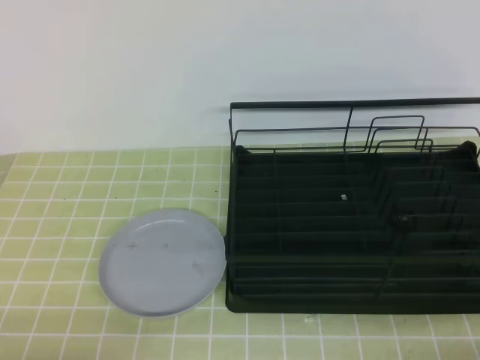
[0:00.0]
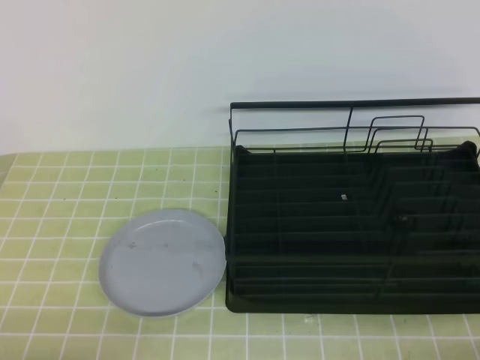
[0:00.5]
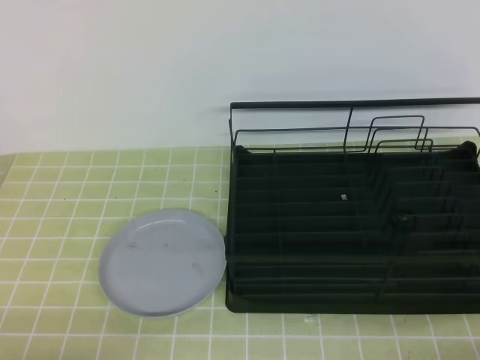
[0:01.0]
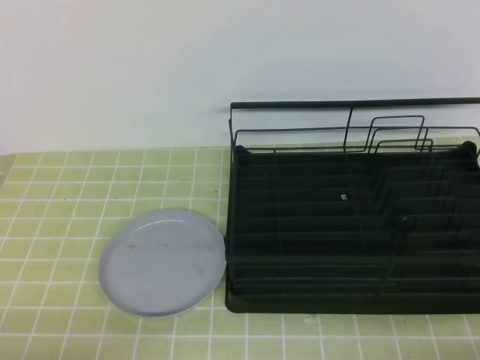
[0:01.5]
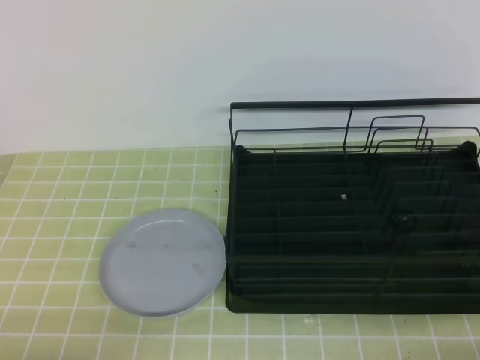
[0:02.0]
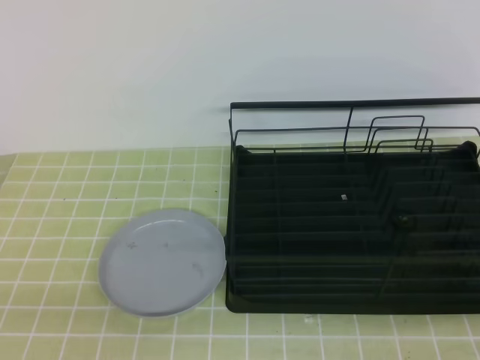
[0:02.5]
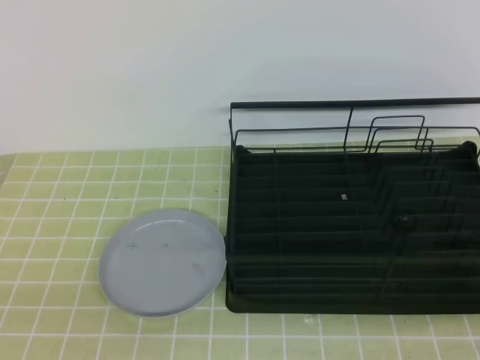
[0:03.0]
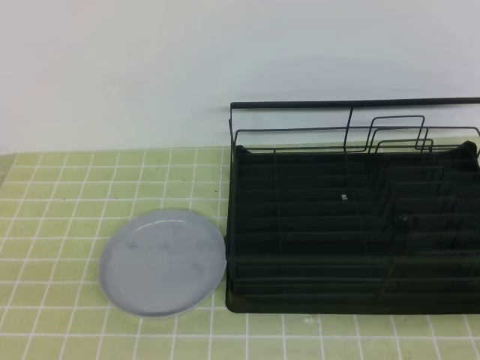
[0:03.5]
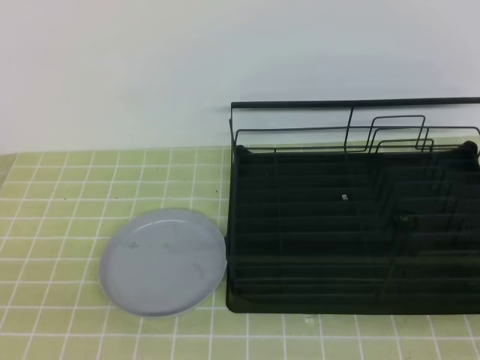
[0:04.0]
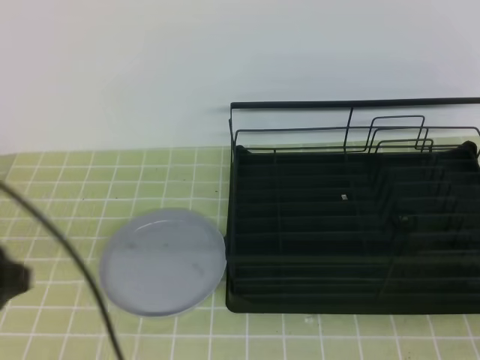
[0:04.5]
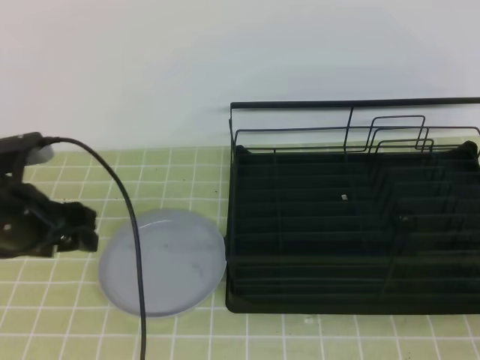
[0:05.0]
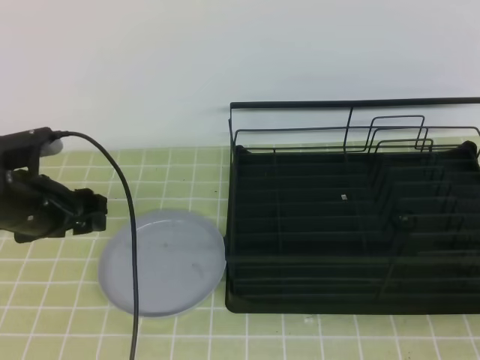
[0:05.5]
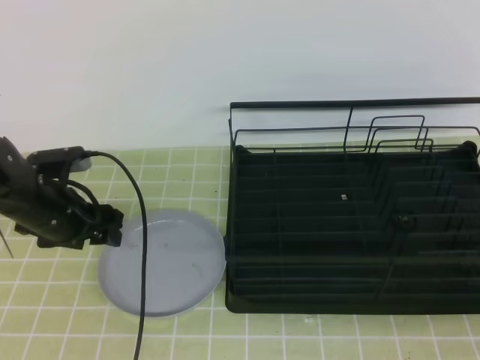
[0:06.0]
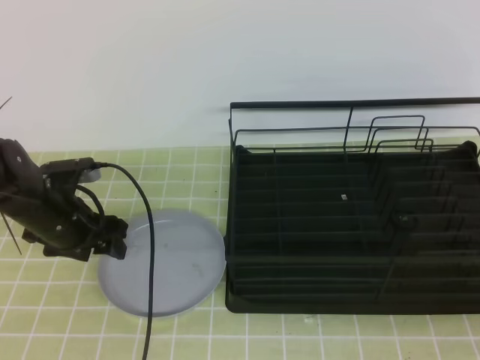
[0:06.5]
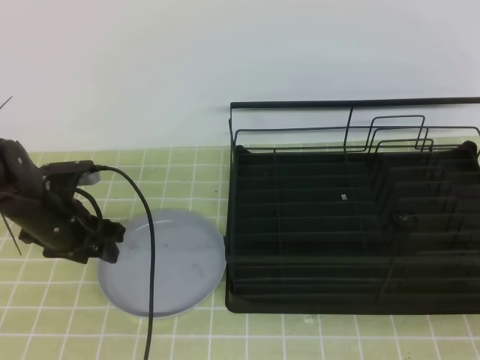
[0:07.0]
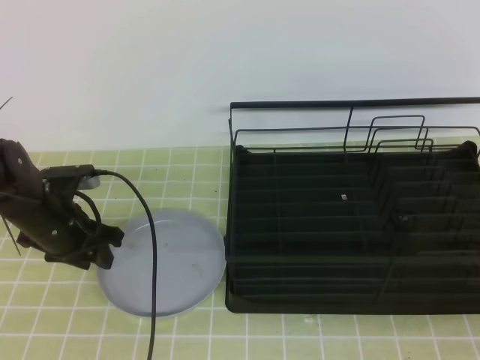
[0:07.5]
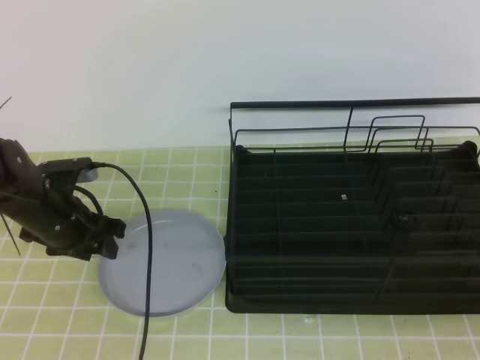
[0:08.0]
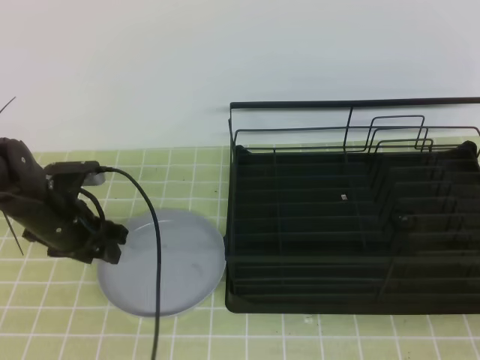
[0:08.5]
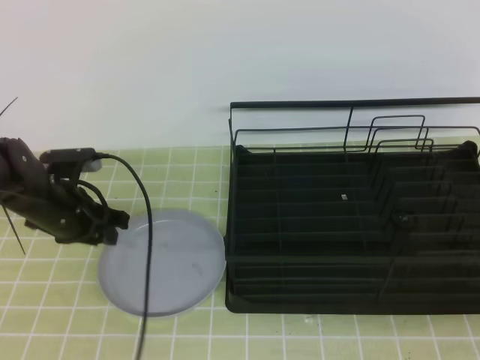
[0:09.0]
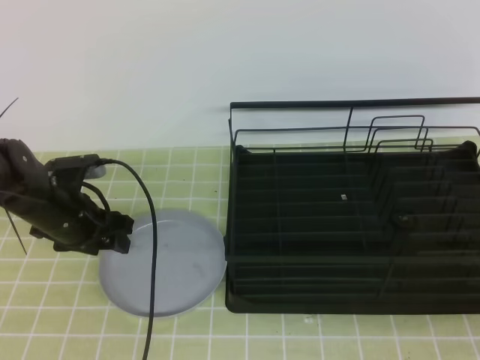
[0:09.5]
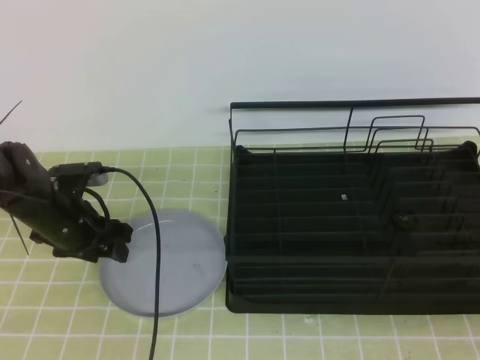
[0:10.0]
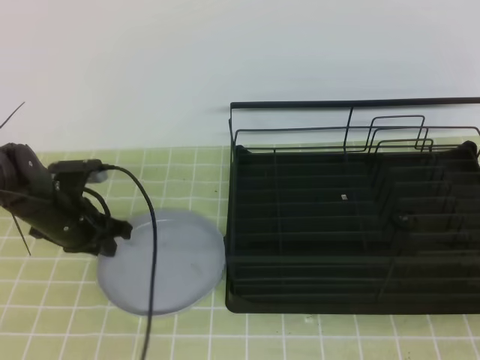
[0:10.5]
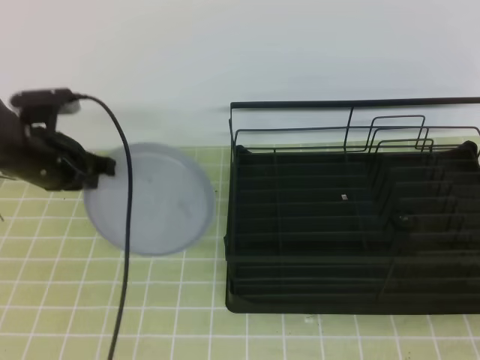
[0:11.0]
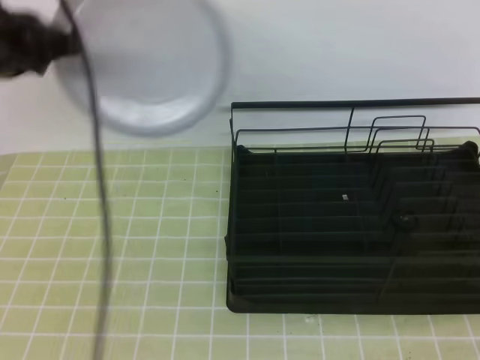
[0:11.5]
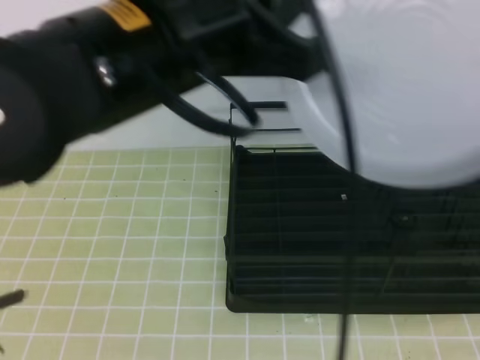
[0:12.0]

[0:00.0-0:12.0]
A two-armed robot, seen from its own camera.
Step, 0:00.0 to 0:08.5: Left grab the gray plate.
0:00.0 to 0:02.0: Both grippers stay put.
0:04.0 to 0:06.0: The left gripper is displaced forward by approximately 35 cm, and opens.
0:06.0 to 0:08.0: The left gripper closes its fingers.
0:08.0 to 0:10.0: The two grippers keep their place.
0:10.0 to 0:12.0: The right gripper goes approximately 10 cm upward, and opens up, while the left gripper moves upward, backward and to the right, roughly 35 cm, and closes its fingers.

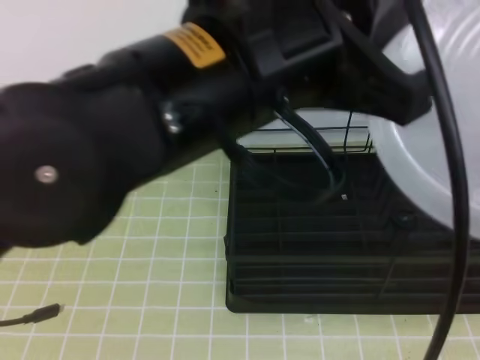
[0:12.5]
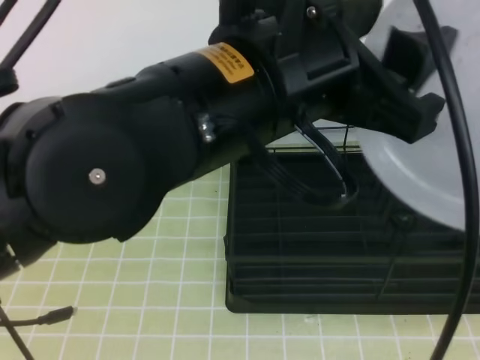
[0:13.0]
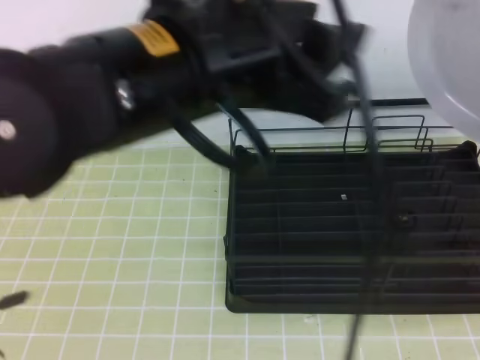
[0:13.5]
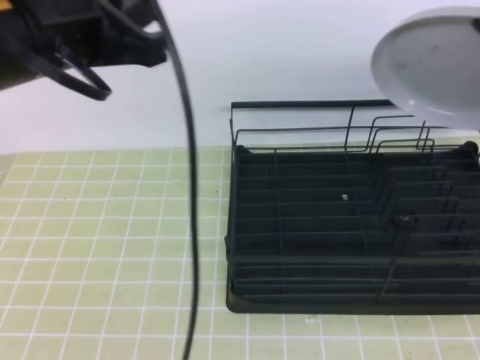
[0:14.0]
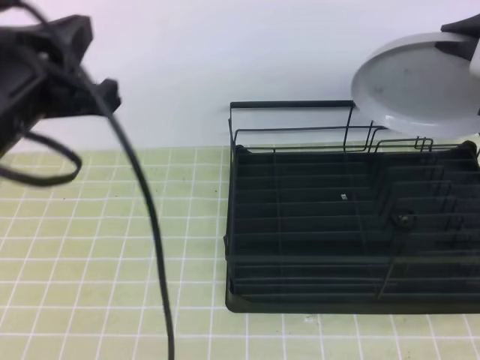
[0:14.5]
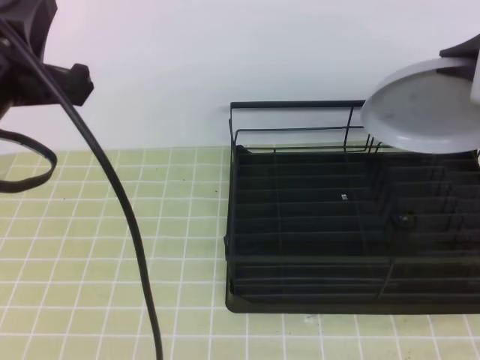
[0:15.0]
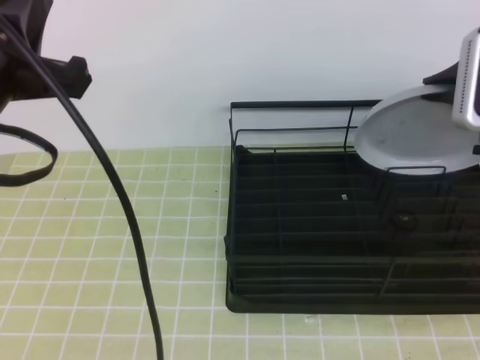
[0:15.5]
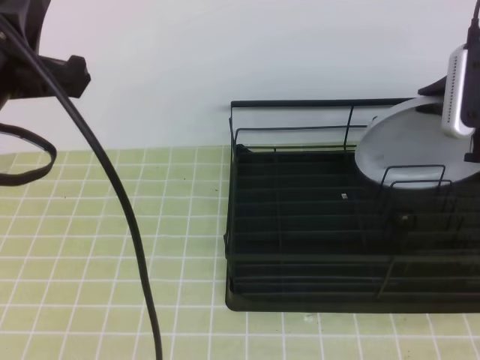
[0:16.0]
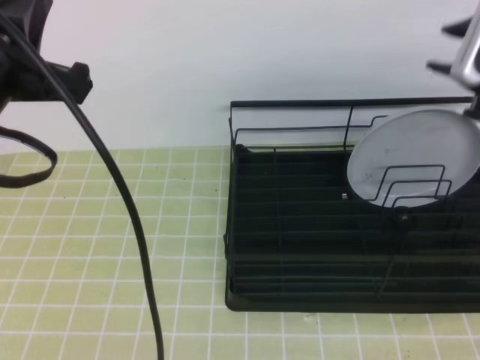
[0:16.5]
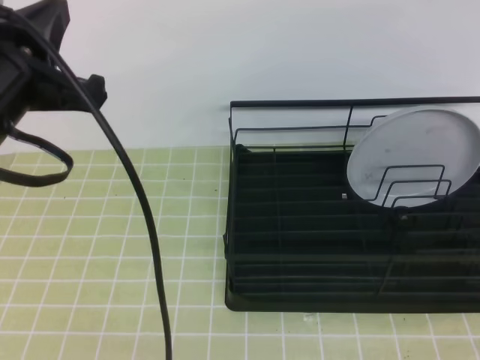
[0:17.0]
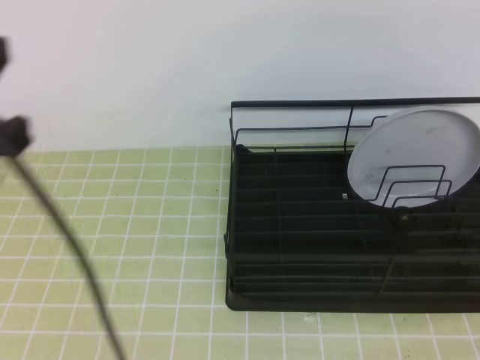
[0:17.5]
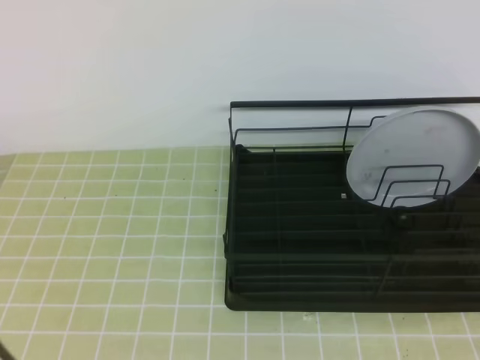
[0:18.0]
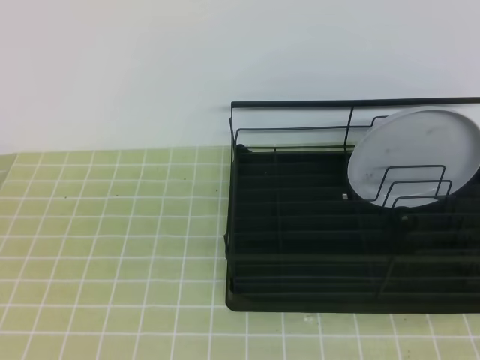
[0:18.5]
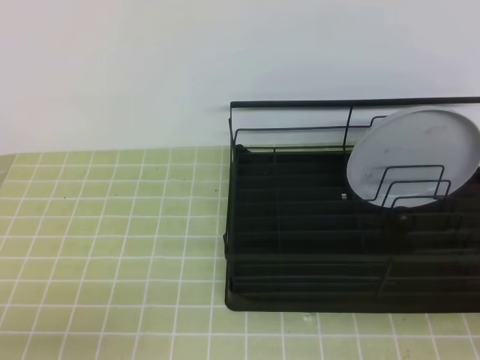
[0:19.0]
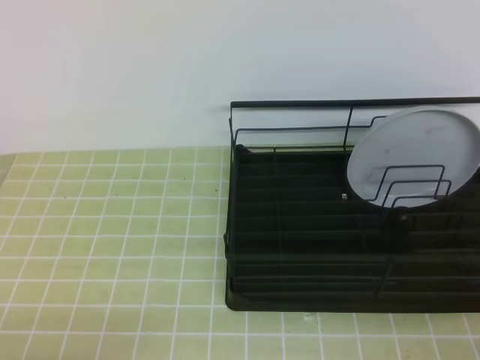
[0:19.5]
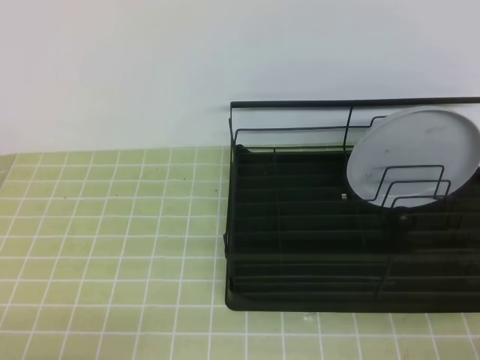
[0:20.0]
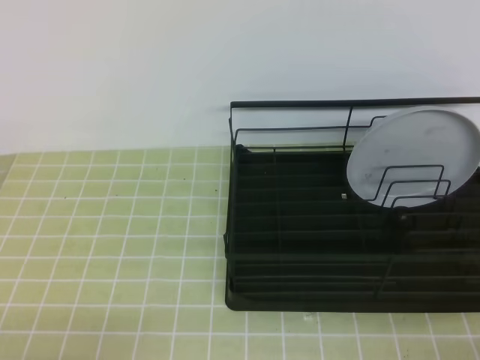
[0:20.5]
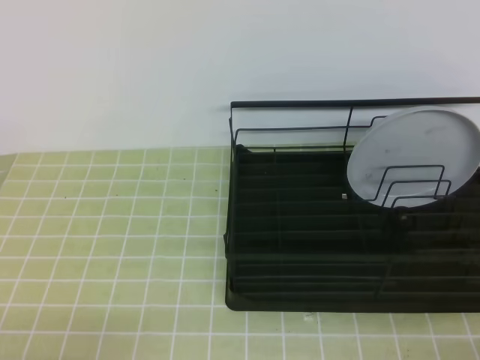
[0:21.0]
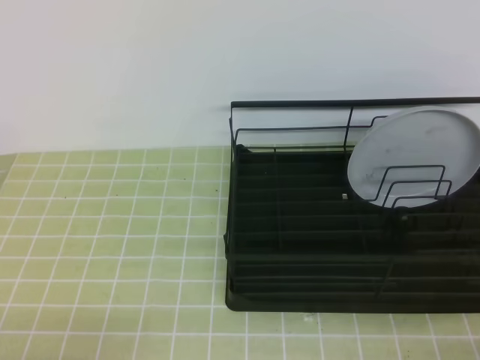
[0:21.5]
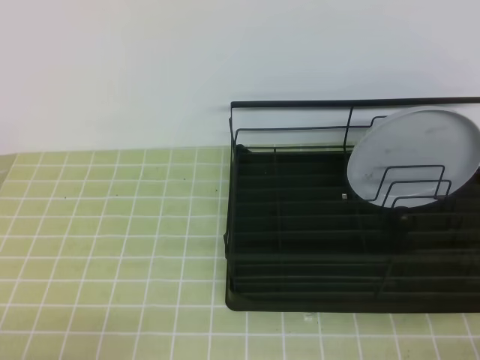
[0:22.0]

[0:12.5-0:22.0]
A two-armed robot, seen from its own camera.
0:12.5 to 0:14.5: The right gripper shifts roughly 25 cm forward, and closes its fingers, while the left gripper heads to the left, covering roughly 15 cm, and opens, then closes once more.
0:14.5 to 0:16.5: The right gripper opens.
0:16.5 to 0:18.0: The left gripper is displaced backward and to the left by some 15 cm; the right gripper shifts some 30 cm backward, and closes its fingers.
0:18.0 to 0:20.0: The two grippers go about 25 cm downward.
